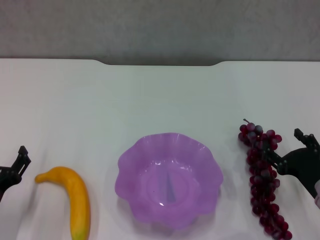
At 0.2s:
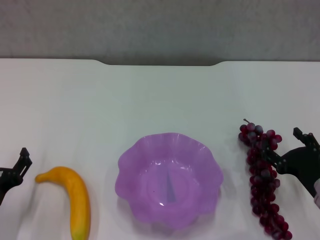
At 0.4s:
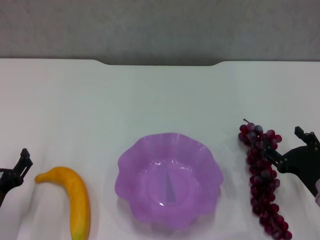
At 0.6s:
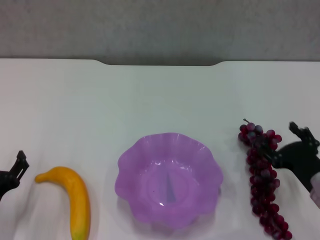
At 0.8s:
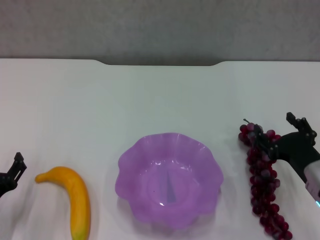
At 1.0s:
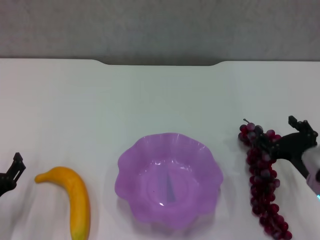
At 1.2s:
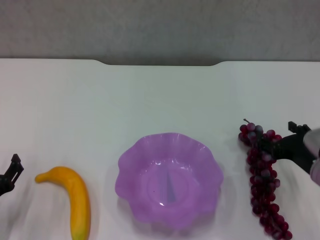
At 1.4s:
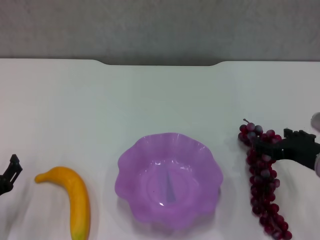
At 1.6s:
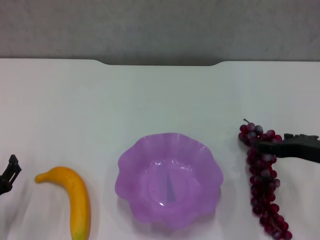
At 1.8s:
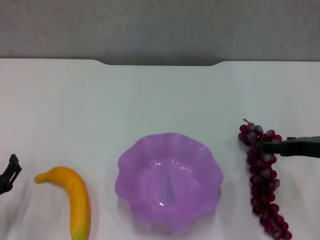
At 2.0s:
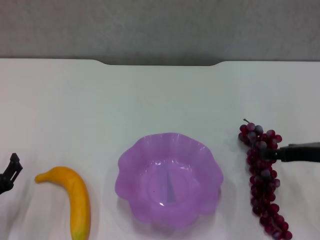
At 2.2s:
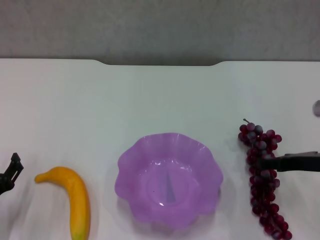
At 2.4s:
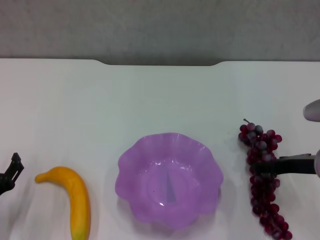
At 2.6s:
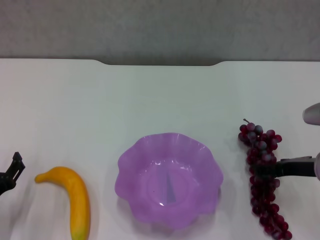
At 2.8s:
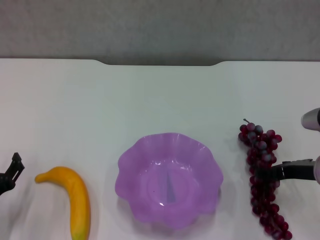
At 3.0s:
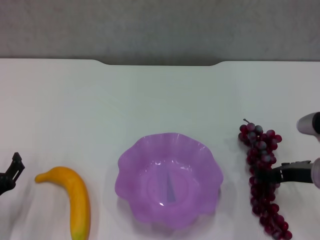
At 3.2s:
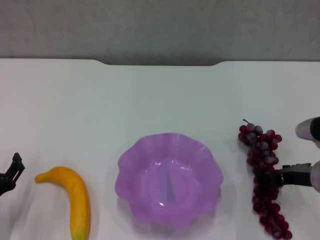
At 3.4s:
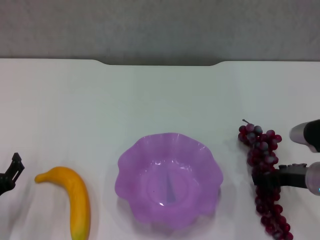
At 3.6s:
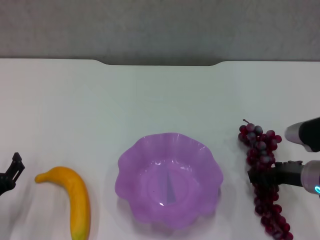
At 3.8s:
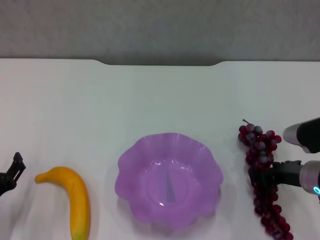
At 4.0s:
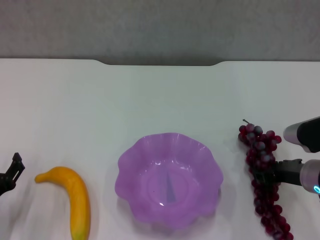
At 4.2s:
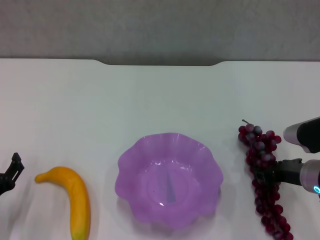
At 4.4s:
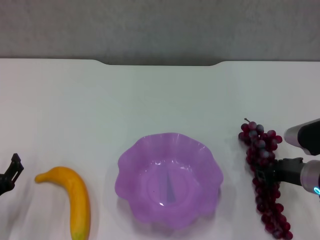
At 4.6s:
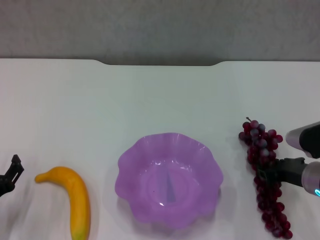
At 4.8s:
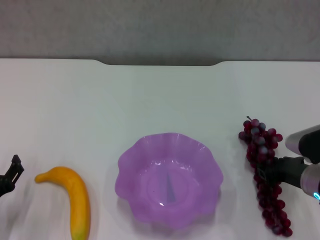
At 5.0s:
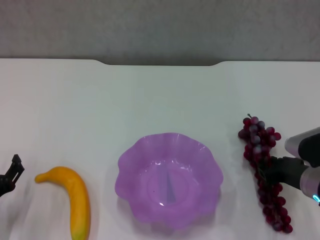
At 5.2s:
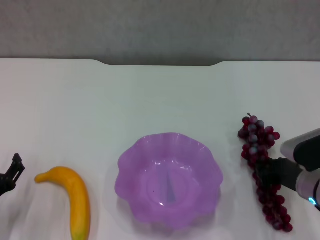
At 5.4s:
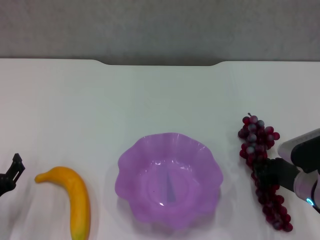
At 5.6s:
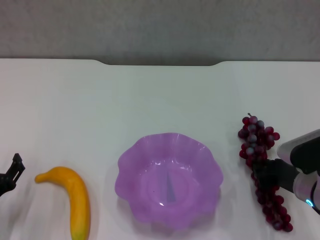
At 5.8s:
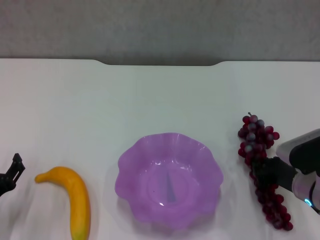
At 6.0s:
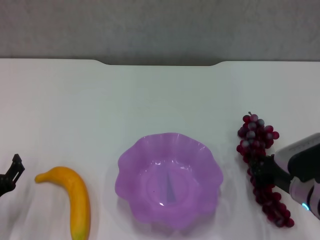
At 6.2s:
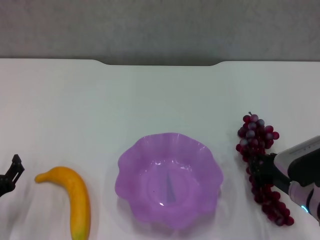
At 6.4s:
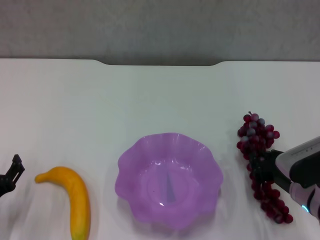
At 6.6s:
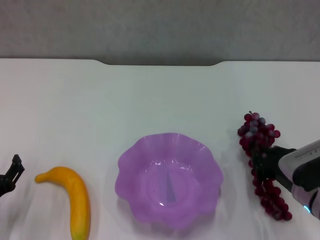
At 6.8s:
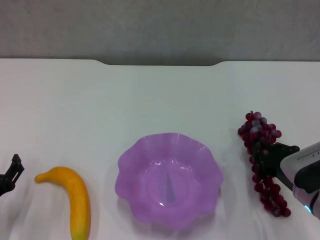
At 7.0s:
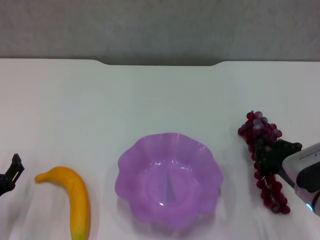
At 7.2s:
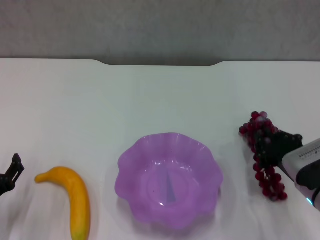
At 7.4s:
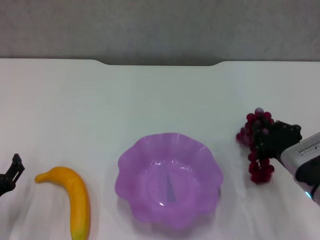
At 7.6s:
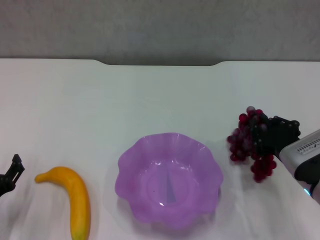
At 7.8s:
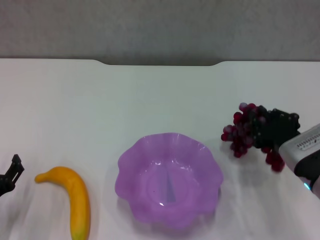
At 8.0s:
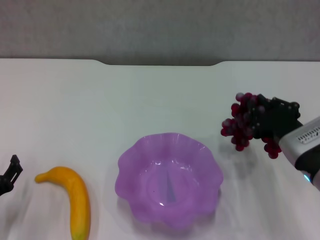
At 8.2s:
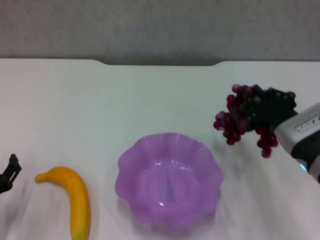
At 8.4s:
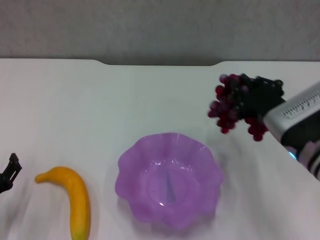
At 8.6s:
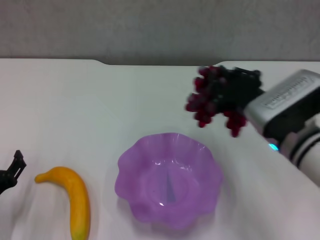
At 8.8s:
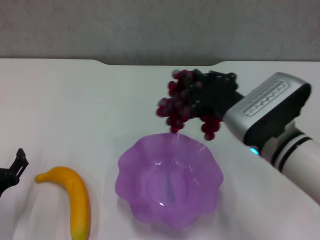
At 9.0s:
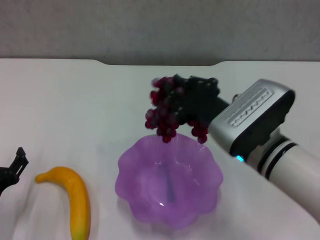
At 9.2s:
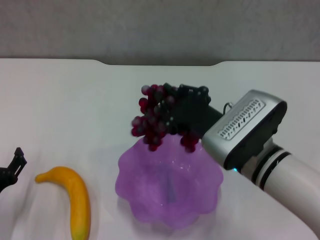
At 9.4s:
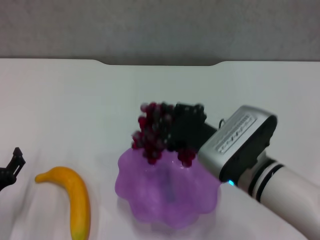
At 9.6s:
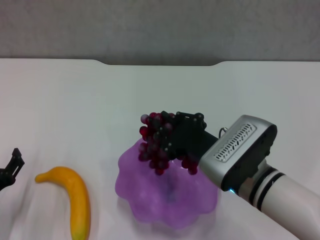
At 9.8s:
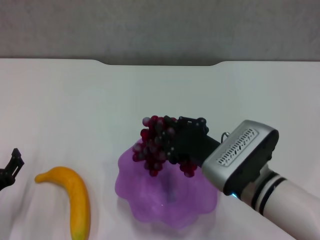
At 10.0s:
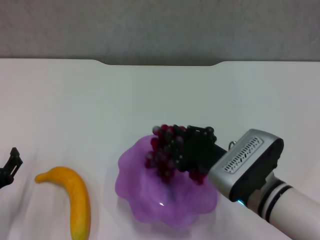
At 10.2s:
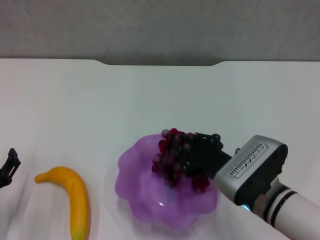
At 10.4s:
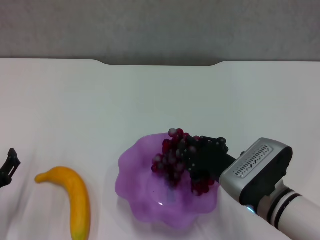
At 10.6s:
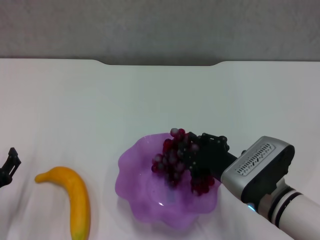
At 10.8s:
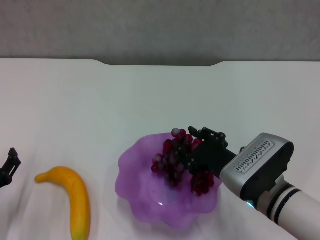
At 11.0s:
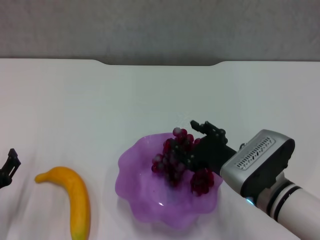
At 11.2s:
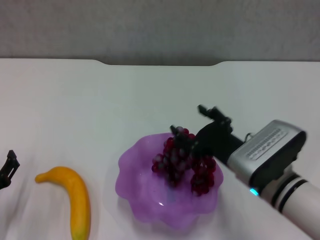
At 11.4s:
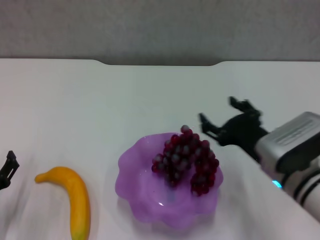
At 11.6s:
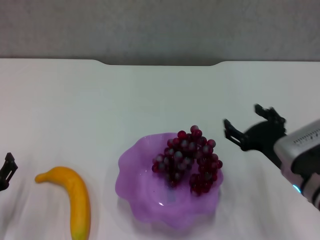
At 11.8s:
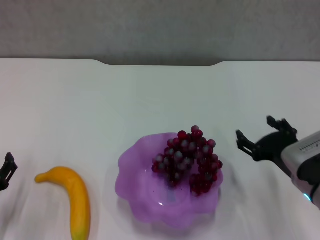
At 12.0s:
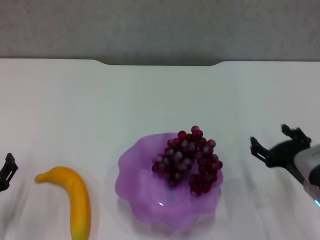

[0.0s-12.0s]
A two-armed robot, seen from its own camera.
Step, 0.0s to 4.4s: Grasp the grape with right gripper.
Step, 4.6s to 11.4s: Place the grape in the purple plate with right gripper.
0.0s to 1.6s: The right gripper is displaced upward by roughly 10 cm.
1.6s to 3.0s: The grippers stay close to where they were, moving slightly.
3.0s to 4.4s: The right gripper closes up.
4.4s to 6.0s: The right gripper closes.
7.6s to 9.0s: The right gripper moves to the left and upward, some 15 cm.
9.0s to 10.4s: The right gripper is displaced downward by approximately 10 cm.
10.4s to 12.0s: The right gripper travels to the right by roughly 10 cm, and opens.

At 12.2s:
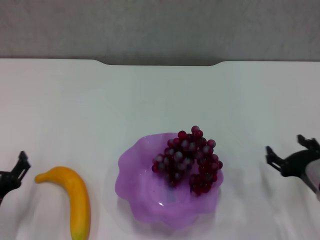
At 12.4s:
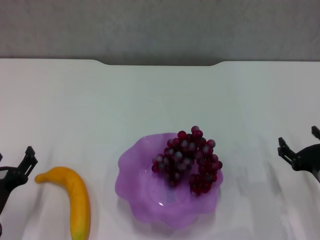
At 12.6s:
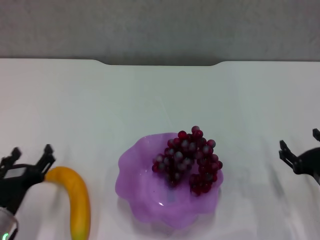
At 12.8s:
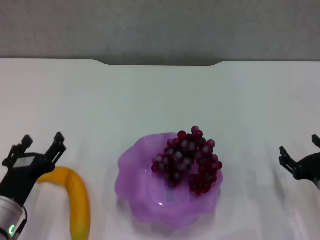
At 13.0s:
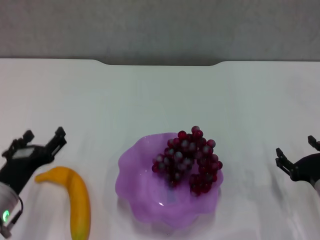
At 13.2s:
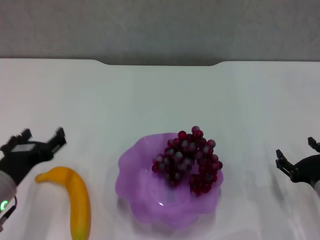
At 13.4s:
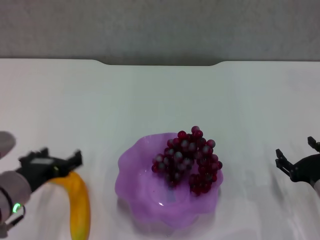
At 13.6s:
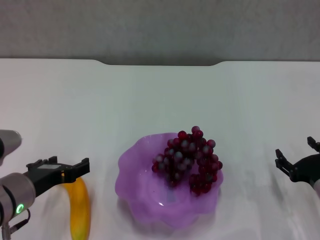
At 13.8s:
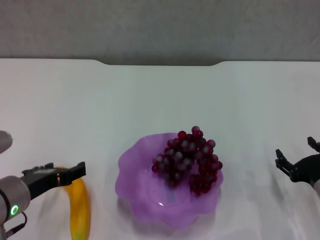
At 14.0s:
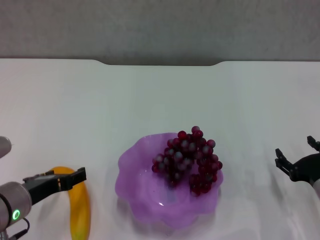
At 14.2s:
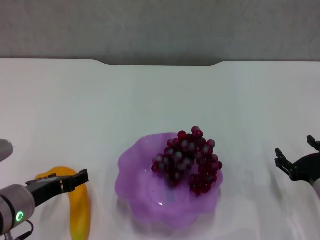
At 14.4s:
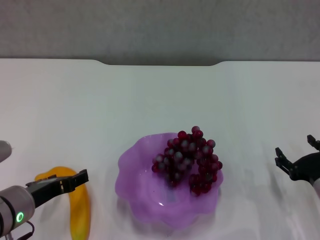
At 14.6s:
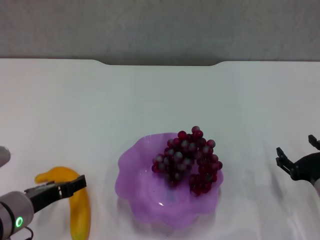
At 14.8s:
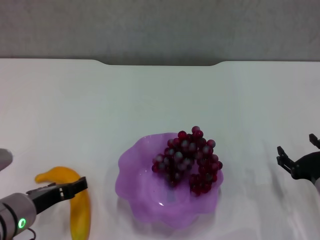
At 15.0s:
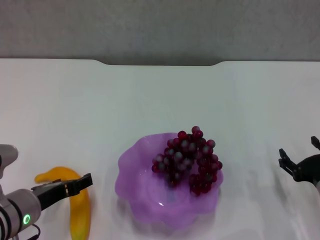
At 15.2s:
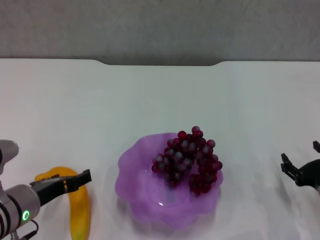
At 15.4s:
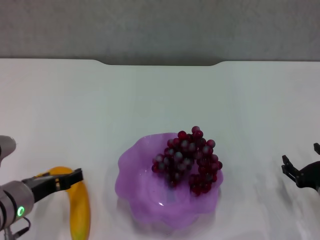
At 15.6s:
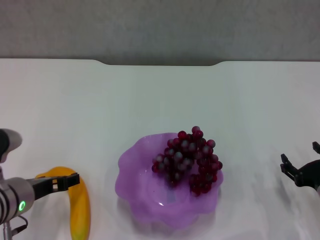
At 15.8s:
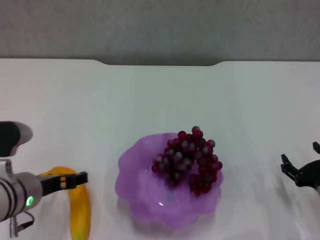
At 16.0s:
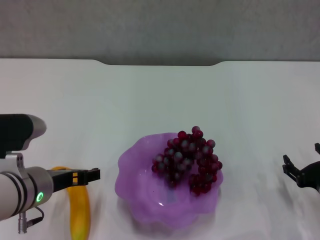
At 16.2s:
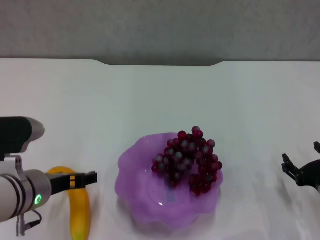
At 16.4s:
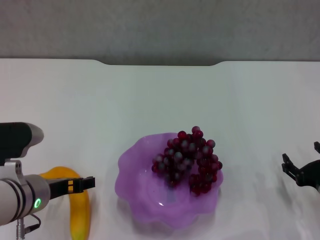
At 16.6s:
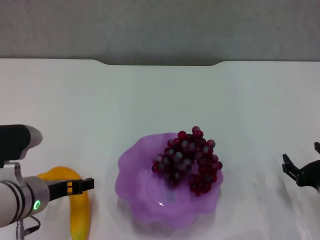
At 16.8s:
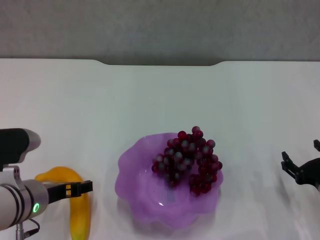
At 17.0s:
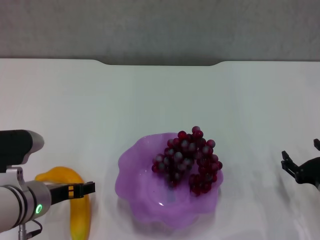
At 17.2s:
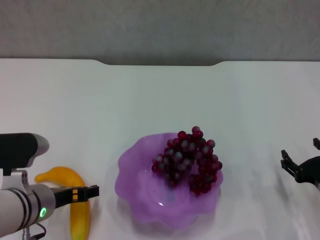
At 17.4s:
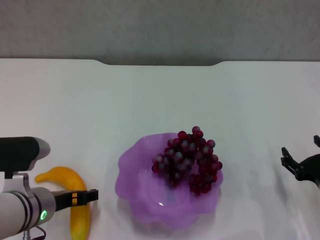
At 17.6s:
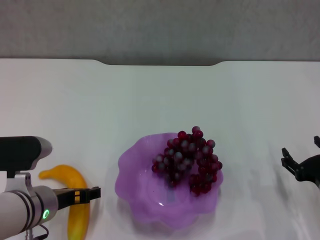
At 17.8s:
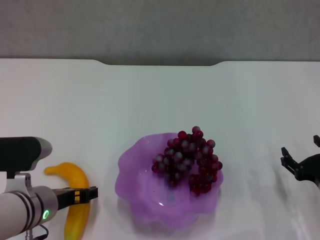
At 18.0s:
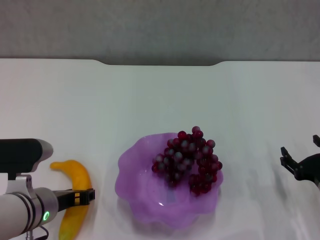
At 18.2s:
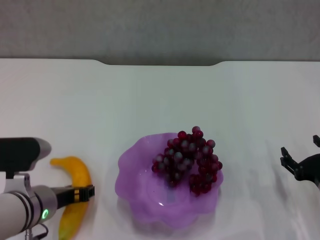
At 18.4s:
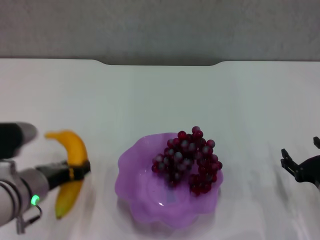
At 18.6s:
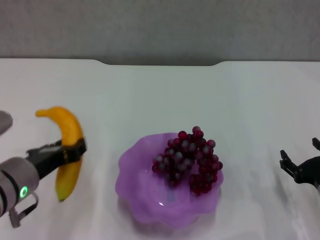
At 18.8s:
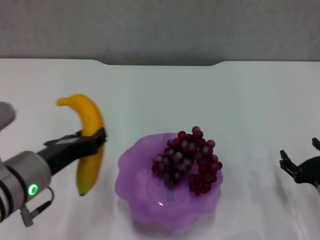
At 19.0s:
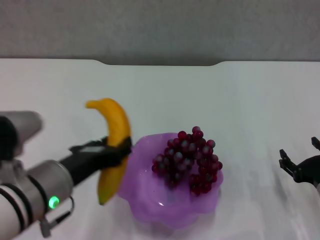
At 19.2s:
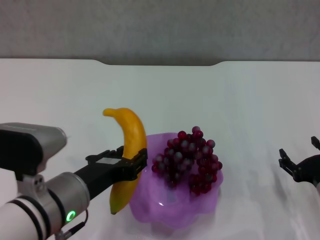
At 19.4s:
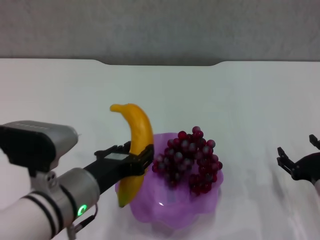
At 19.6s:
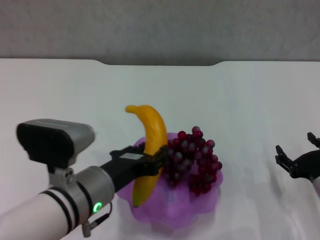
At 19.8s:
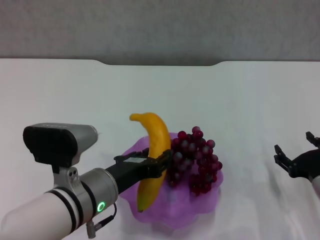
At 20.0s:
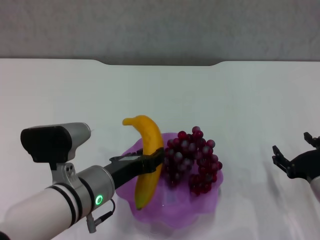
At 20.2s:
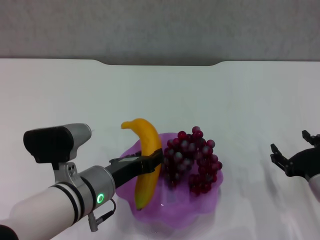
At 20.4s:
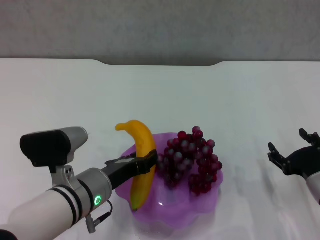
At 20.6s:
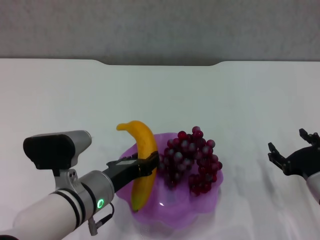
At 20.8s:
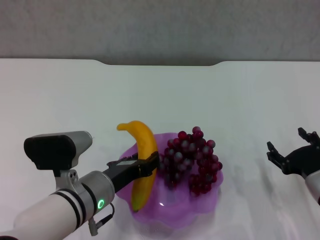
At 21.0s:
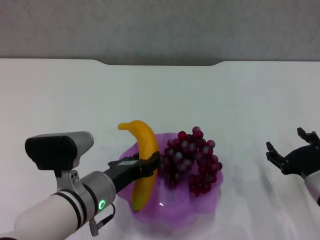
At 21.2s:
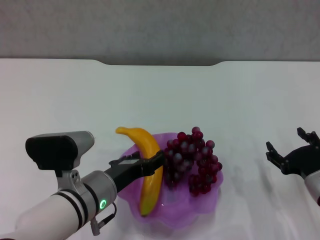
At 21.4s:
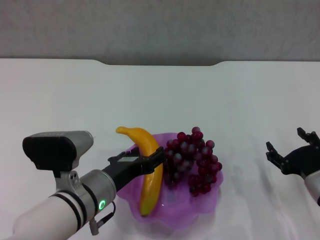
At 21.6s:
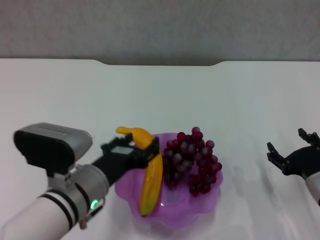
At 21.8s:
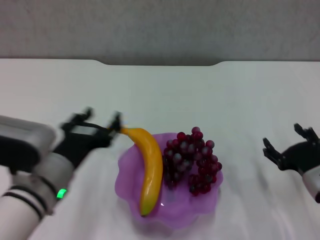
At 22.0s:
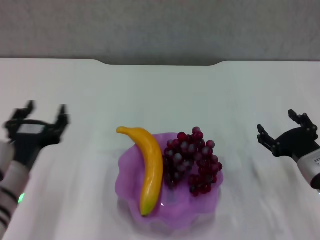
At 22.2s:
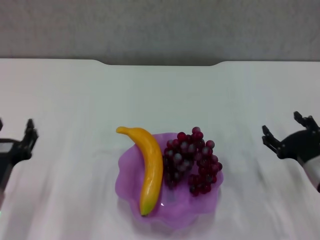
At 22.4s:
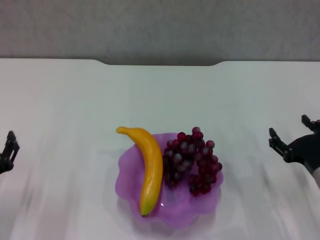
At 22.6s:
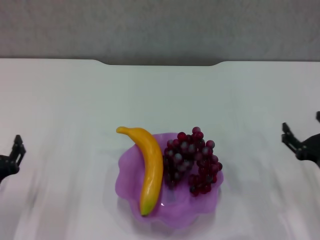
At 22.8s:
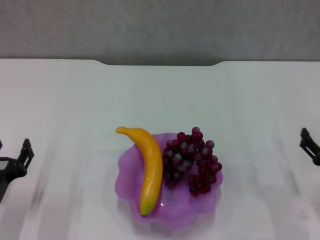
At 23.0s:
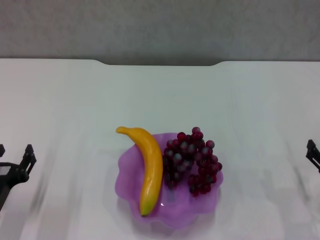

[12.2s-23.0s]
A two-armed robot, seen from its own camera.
Step, 12.2s to 17.8s: Grasp the banana with left gripper.
Step, 18.2s to 21.4s: Place the banana in the purple plate with left gripper.
12.2s to 13.8s: The left gripper shifts roughly 10 cm upward and to the right.
13.8s to 16.8s: There are only small adjustments of the grippers.
16.8s to 18.4s: The left gripper closes up.
18.4s to 20.0s: The left gripper heads to the right, covering about 10 cm.
20.0s to 21.4s: The left gripper opens.
21.4s to 23.0s: The left gripper heads to the left, covering some 15 cm, while the right gripper shifts some 5 cm to the right.
